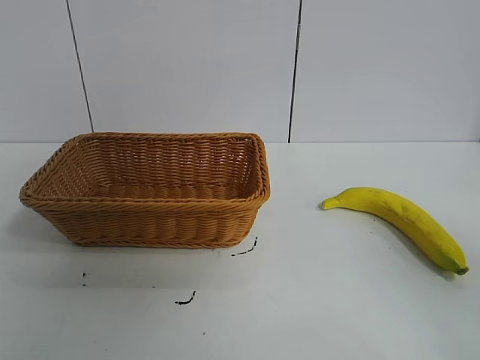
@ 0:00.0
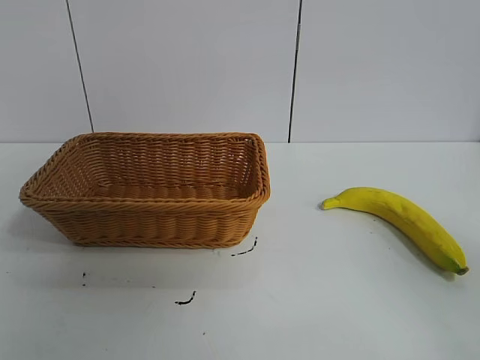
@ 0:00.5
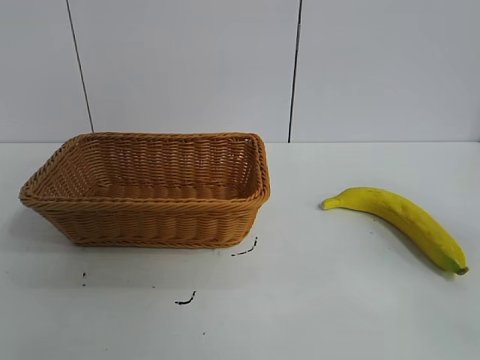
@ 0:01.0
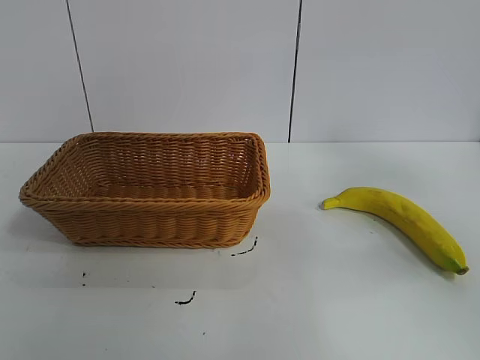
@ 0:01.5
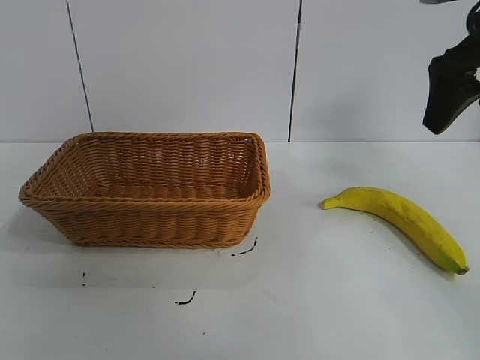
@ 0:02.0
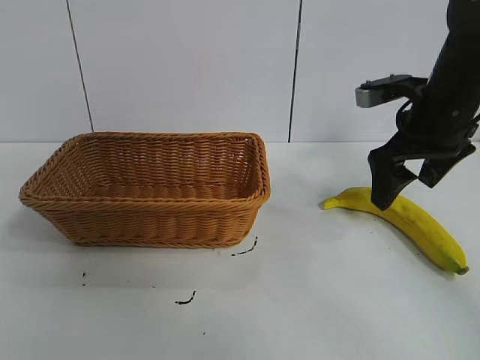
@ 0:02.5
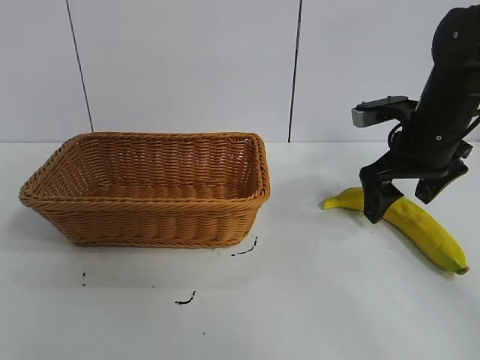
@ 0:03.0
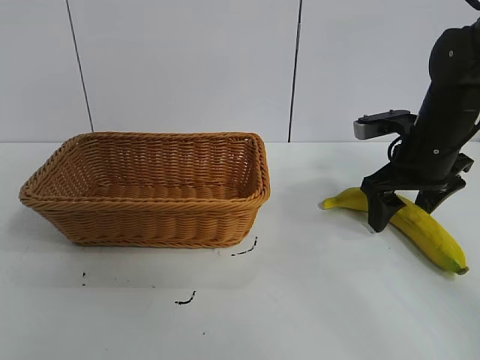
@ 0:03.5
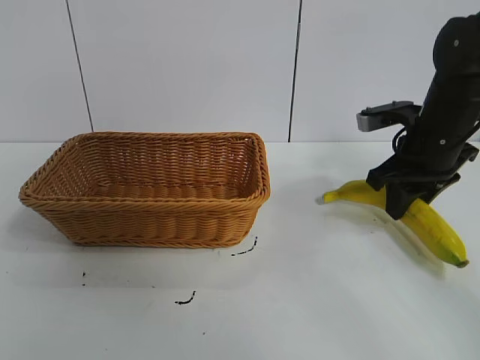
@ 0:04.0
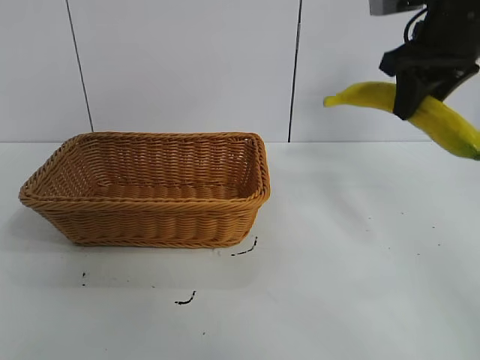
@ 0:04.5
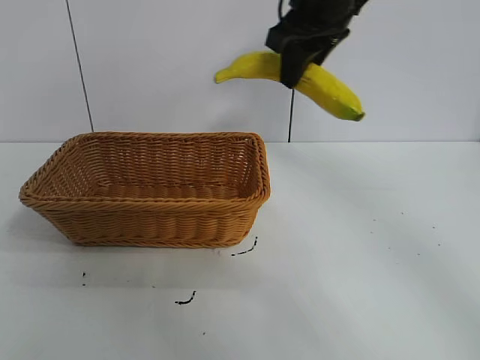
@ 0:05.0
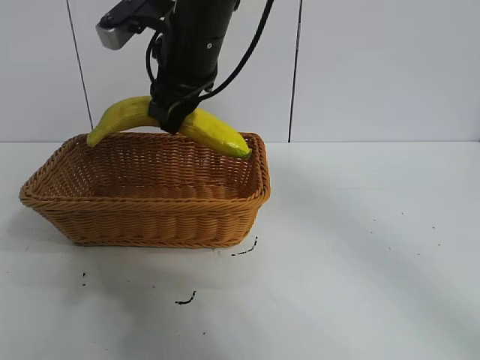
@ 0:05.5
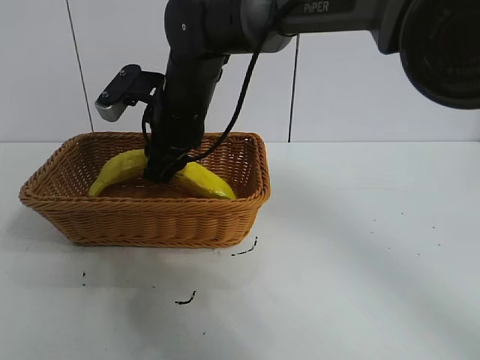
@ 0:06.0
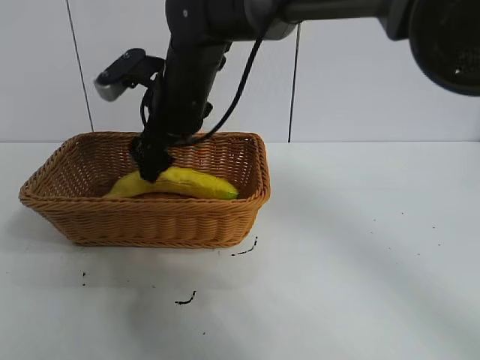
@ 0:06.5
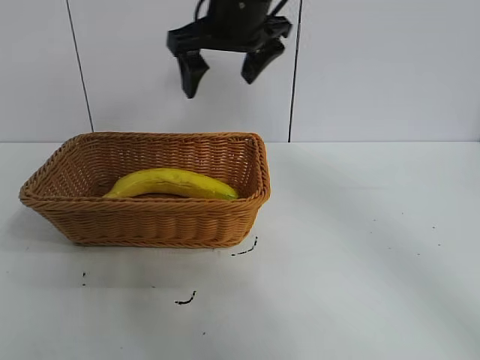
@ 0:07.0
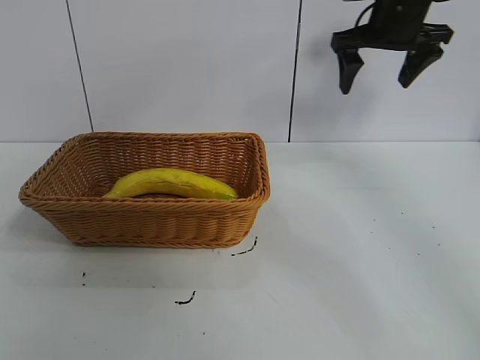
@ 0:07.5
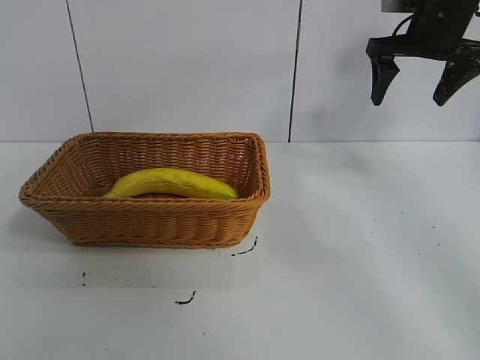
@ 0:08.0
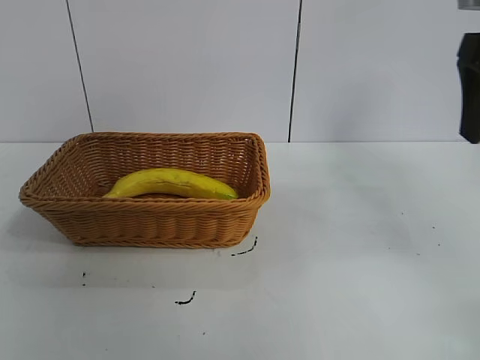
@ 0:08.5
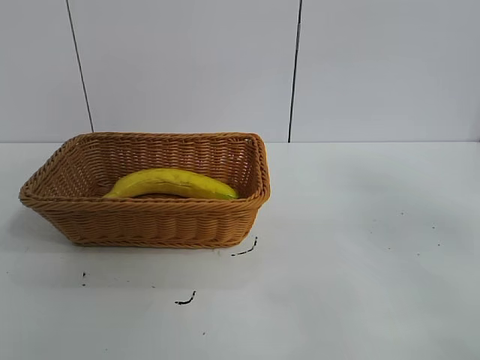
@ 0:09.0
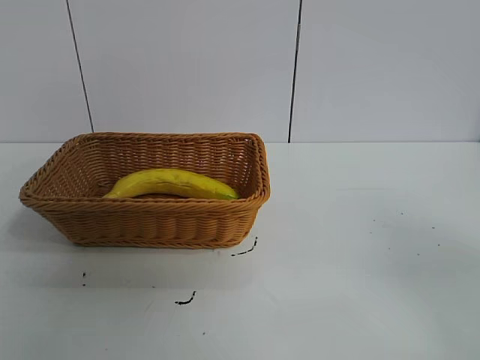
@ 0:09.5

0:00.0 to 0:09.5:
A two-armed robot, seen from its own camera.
Task of the whole recording: pick up the banana and put it into the basket.
Step, 0:01.0 to 0:03.5: Grasp the banana with right gripper.
Step, 0:04.0 to 0:06.5: Place the banana in the basket with right gripper.
